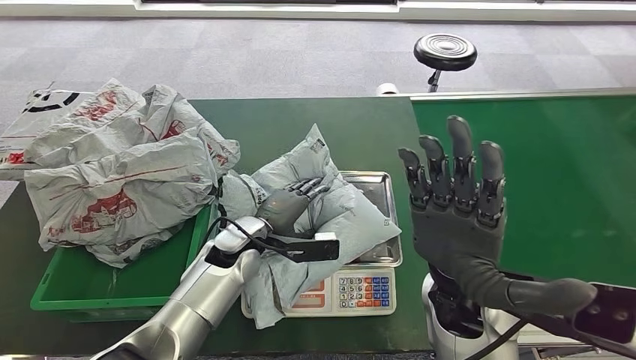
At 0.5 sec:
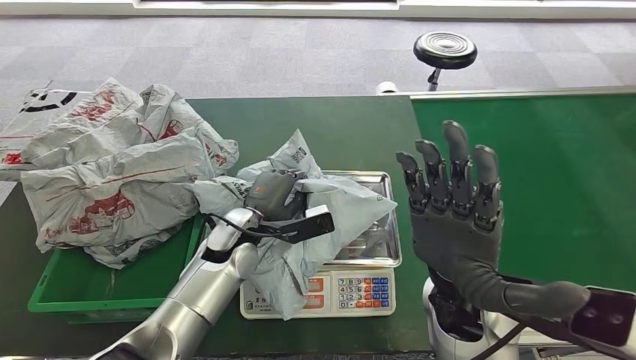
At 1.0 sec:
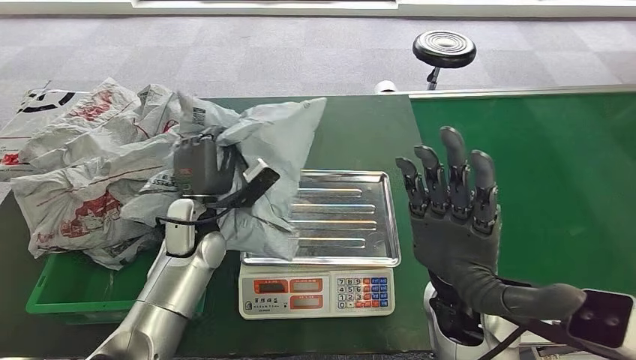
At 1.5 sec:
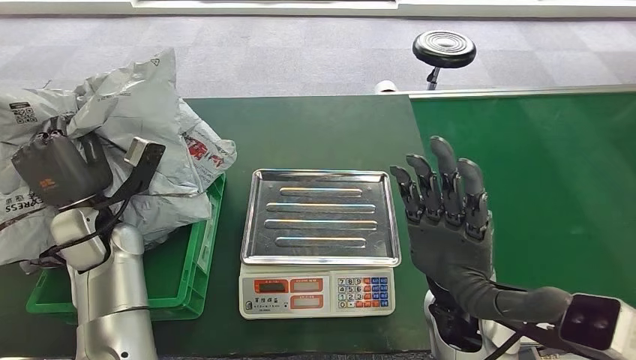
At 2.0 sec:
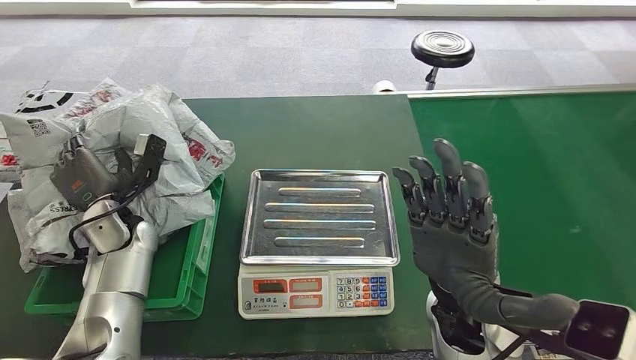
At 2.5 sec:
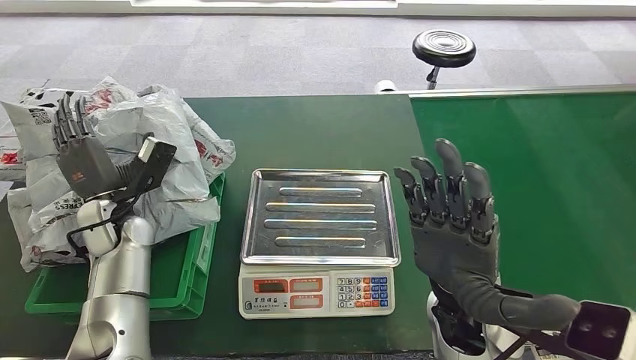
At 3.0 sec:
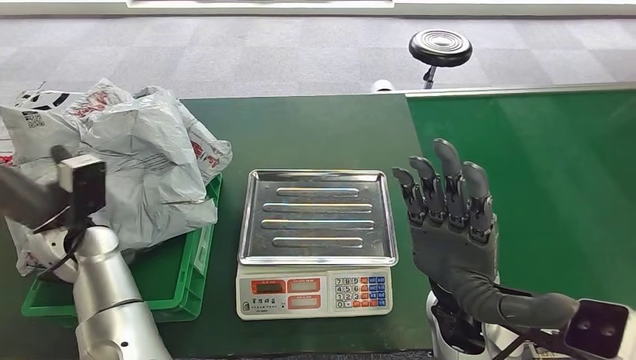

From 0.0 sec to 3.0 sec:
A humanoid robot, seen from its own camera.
Step, from 0.5 sec to 1.0 sec: Pick up the parcel from the inbound machine.
Step, from 1.5 sec to 3.0 sec: Place the parcel into the delivery box.
